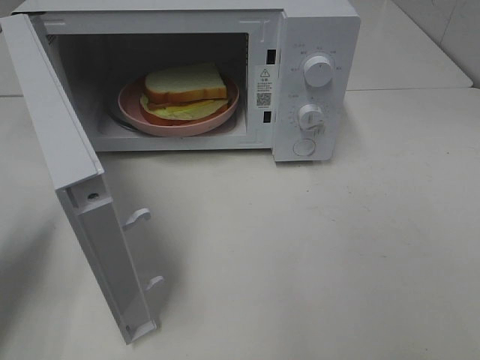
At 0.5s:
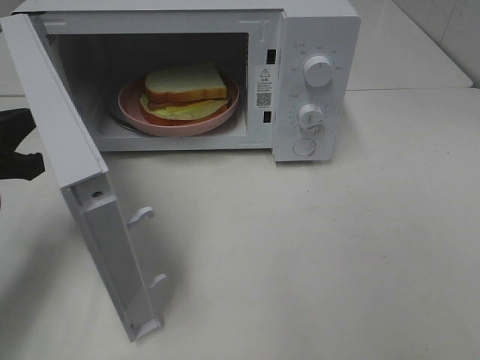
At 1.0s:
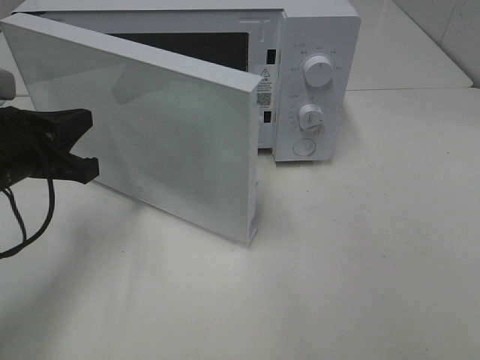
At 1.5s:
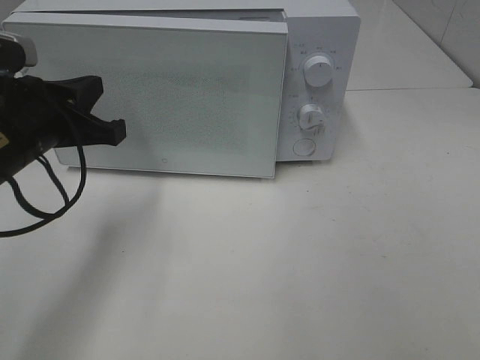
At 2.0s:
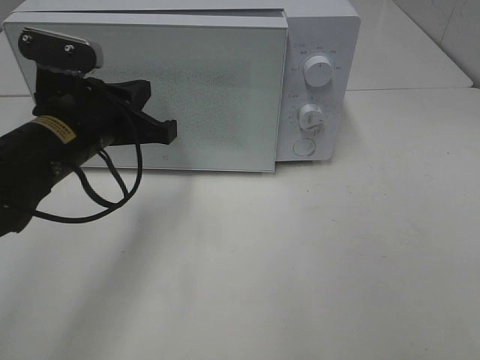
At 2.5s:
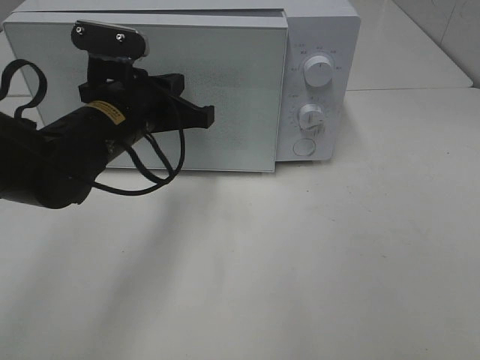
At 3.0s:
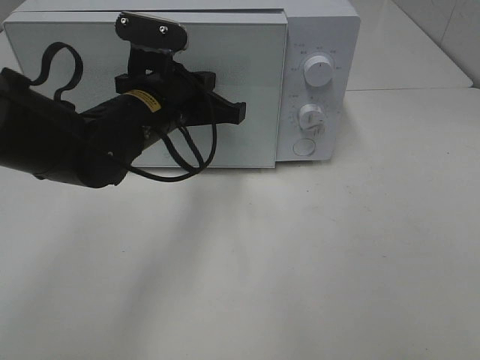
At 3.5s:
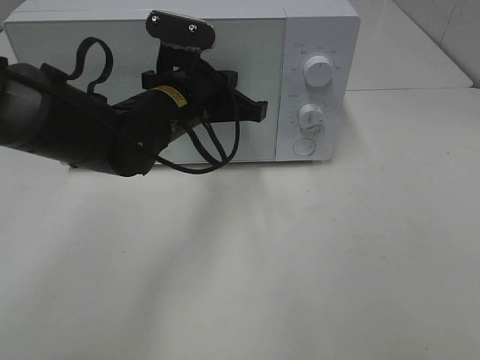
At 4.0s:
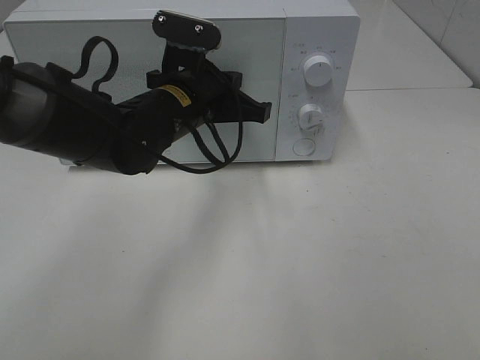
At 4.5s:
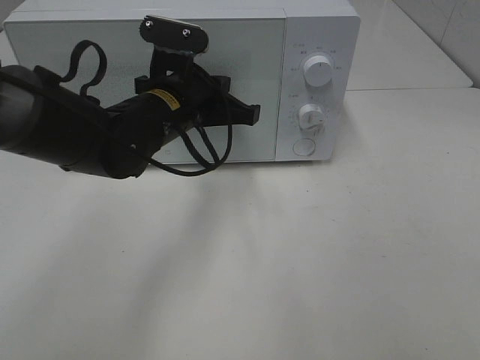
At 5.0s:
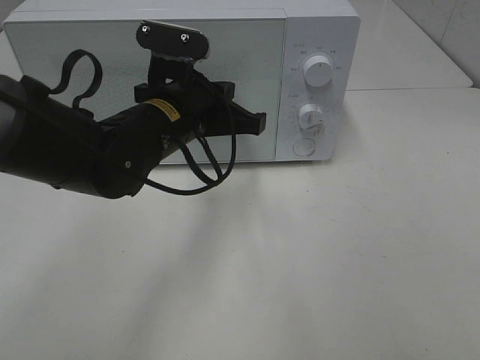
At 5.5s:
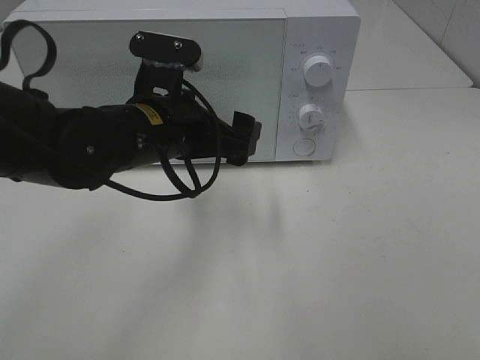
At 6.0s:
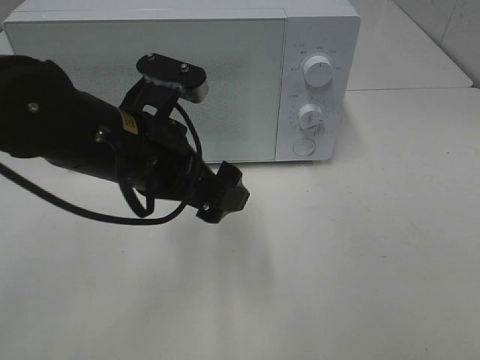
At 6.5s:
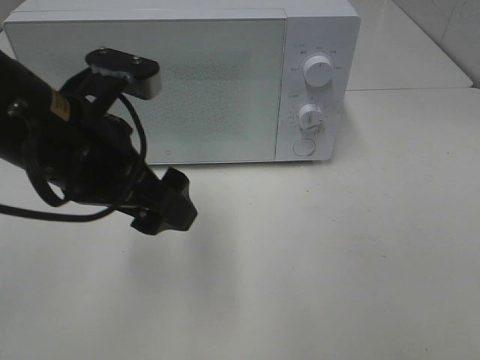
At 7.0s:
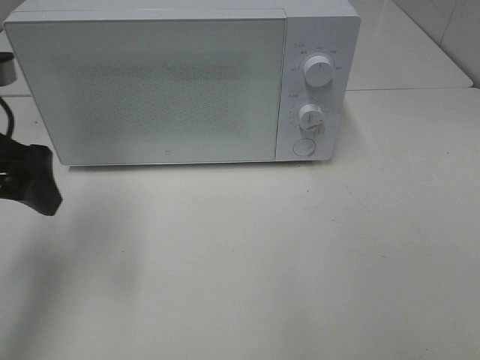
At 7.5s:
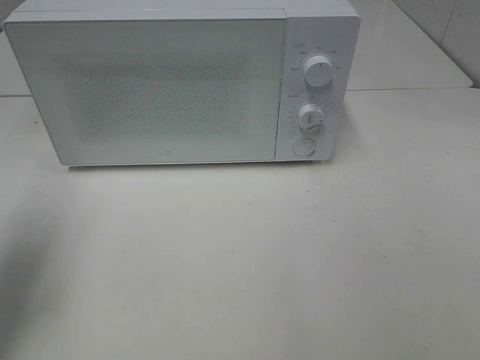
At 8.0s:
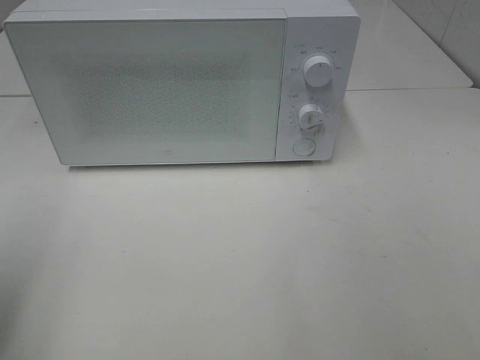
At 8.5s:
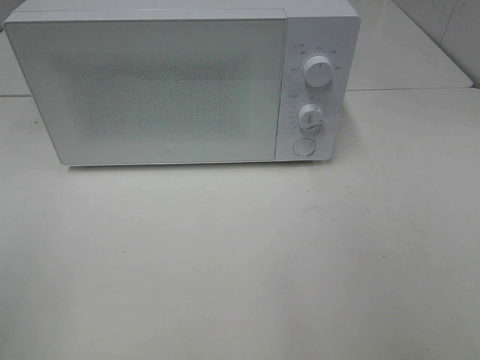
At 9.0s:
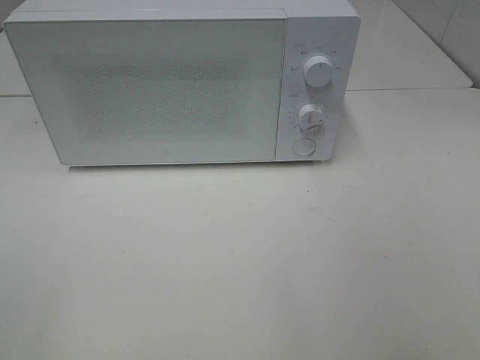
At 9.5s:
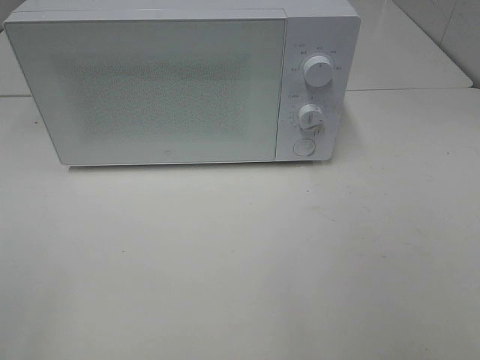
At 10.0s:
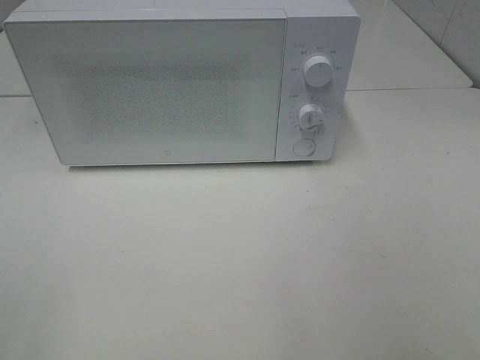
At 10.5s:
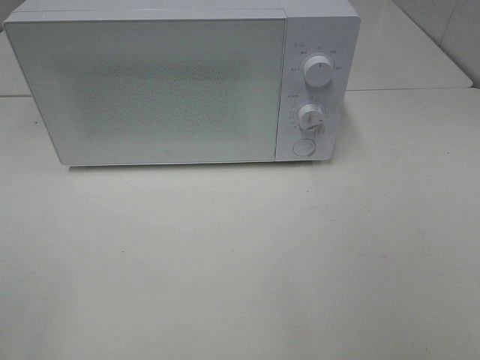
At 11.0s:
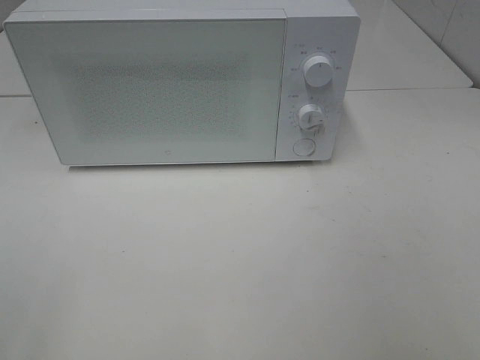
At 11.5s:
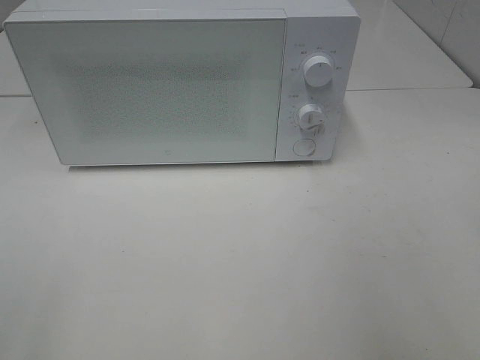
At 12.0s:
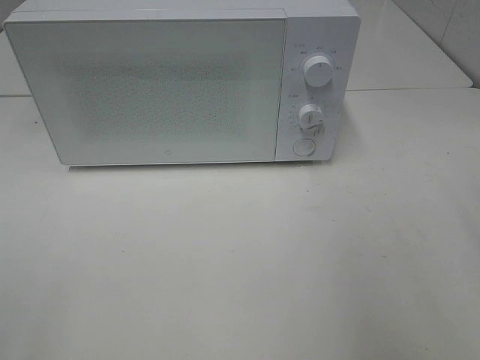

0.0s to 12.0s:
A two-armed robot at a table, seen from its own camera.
Task of the whole recording: Heat Sandwich.
Step, 0.0s to 4.5s: Left hand: close the microwave door.
0.0s to 2.0s: The left gripper travels to the right and forward by roughly 20 cm.
2.0s to 4.0s: The left gripper moves to the right and forward, some 10 cm.
4.0s to 6.0s: The left gripper shifts approximately 10 cm backward, and opens its fingers.
6.0s to 8.0s: The left gripper is displaced to the left and backward by some 25 cm.
8.0s to 10.0s: The left gripper is displaced backward by roughly 10 cm.

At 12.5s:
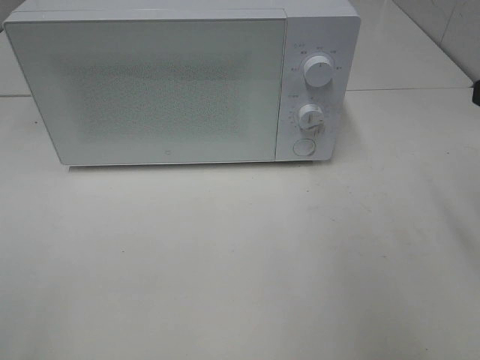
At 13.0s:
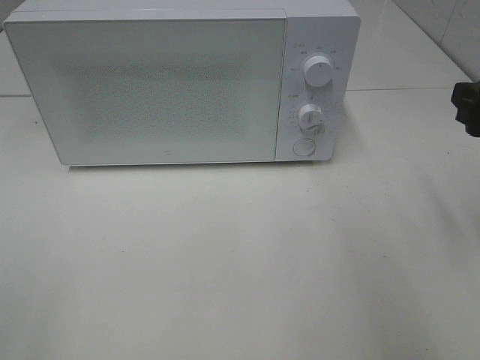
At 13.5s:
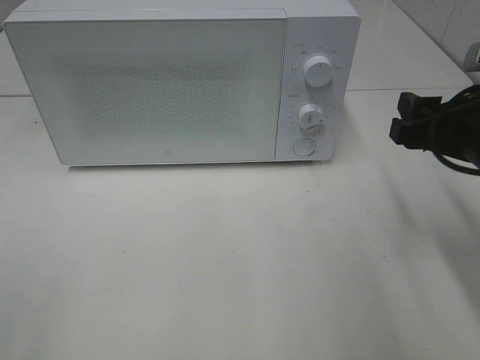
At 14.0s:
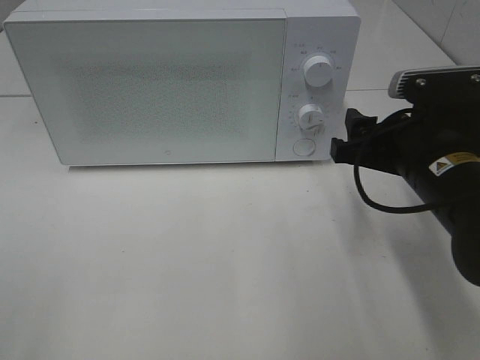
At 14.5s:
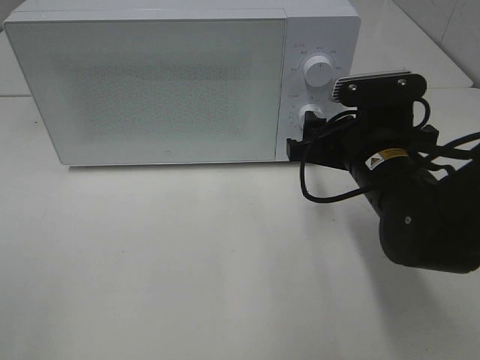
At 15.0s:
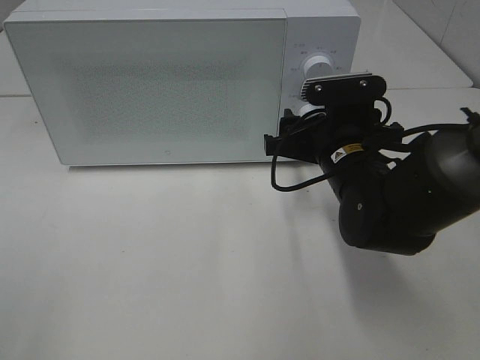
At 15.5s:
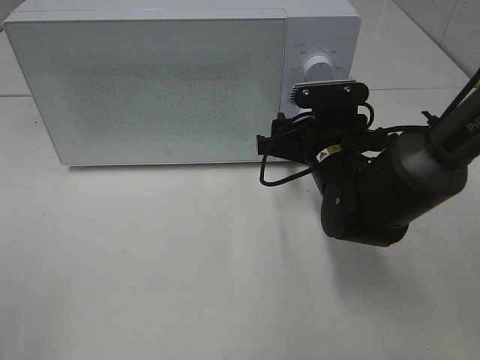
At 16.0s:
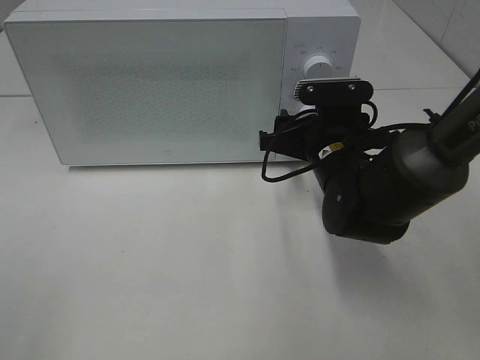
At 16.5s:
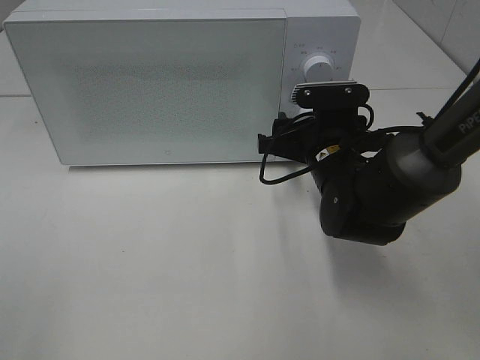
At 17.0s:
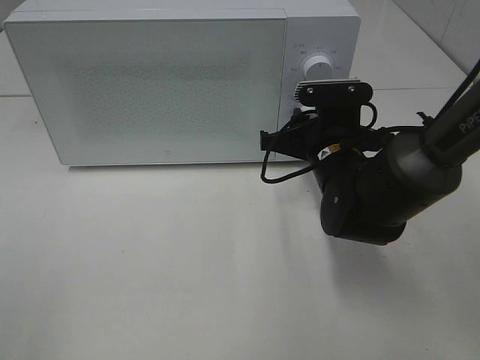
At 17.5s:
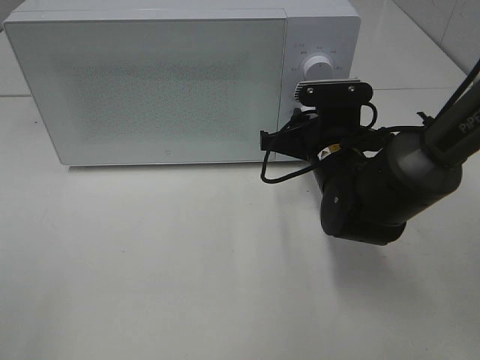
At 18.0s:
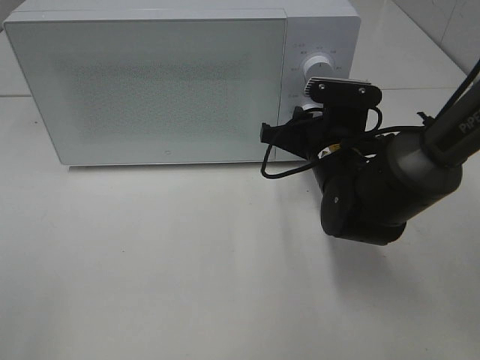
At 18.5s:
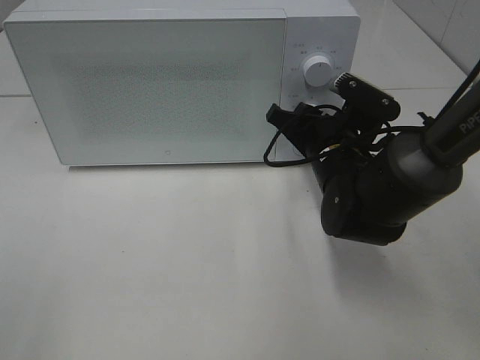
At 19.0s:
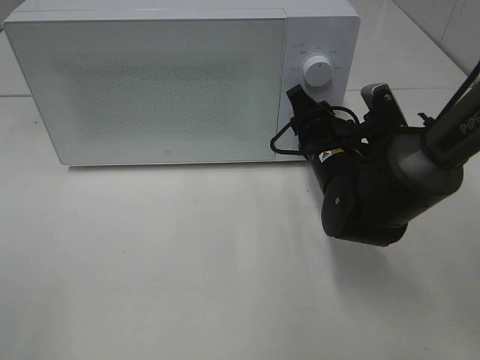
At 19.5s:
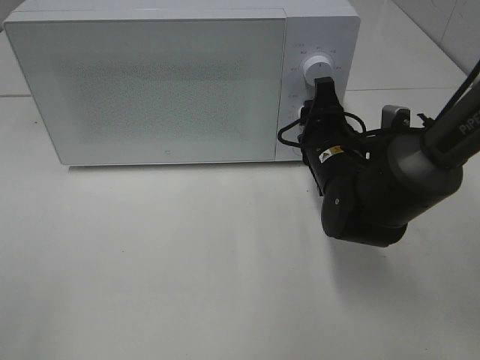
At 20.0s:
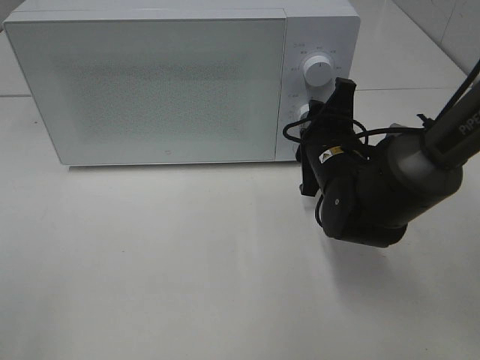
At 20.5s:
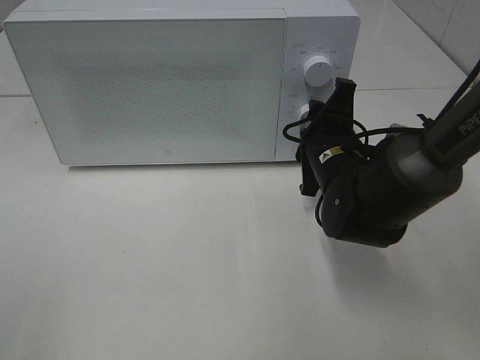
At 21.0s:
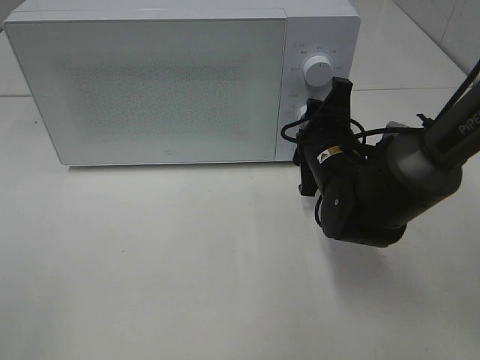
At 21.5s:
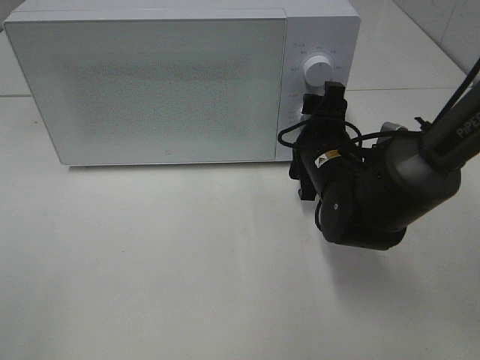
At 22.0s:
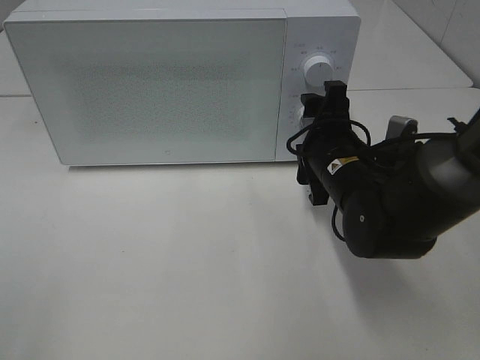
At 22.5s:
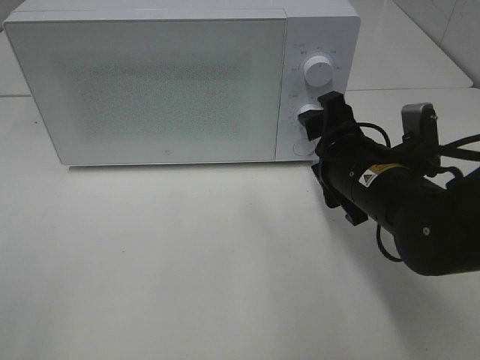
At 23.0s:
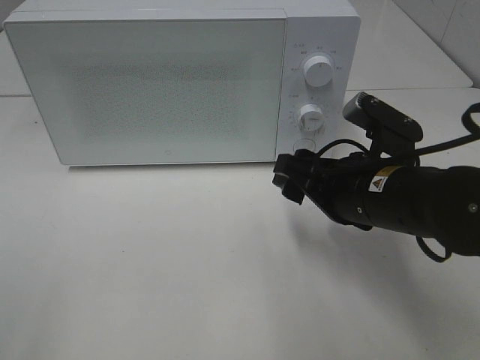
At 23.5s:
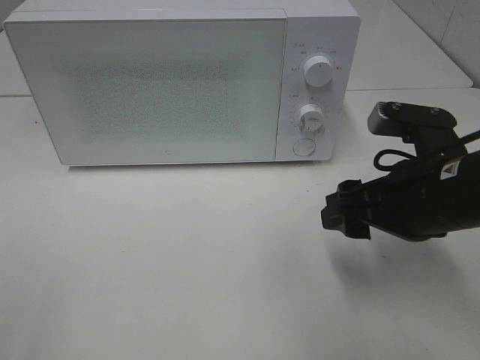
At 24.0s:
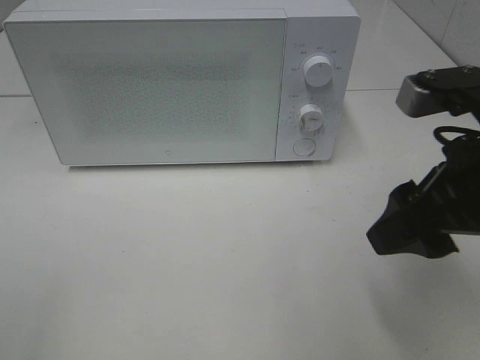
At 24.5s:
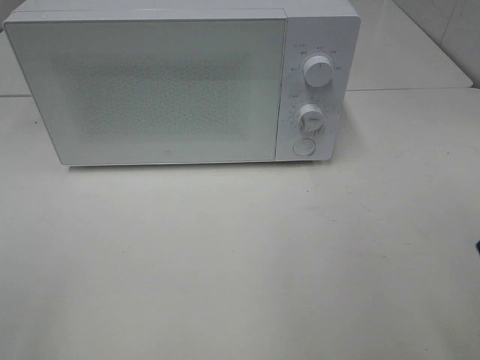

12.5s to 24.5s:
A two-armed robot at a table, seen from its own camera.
Task of the whole recording: Heat Sandwich.
Step, 12.5s to 22.0s: Right hand: twist timer button.
12.5s to 14.5s: The right gripper heads to the left, downward and forward, covering roughly 20 cm.
14.5s to 16.5s: The right gripper travels forward by about 5 cm.
16.5s to 18.5s: The right gripper closes up.
20.5s to 22.5s: The right gripper goes approximately 5 cm backward, and opens.
22.5s to 24.5s: The right gripper heads upward, backward and to the right, covering roughly 25 cm.

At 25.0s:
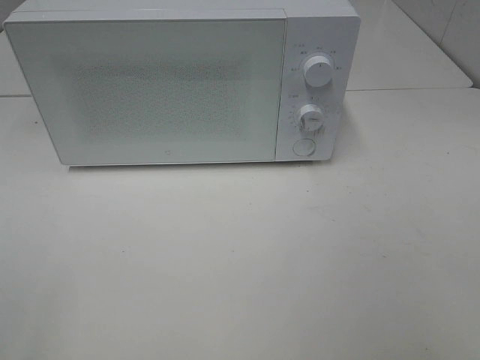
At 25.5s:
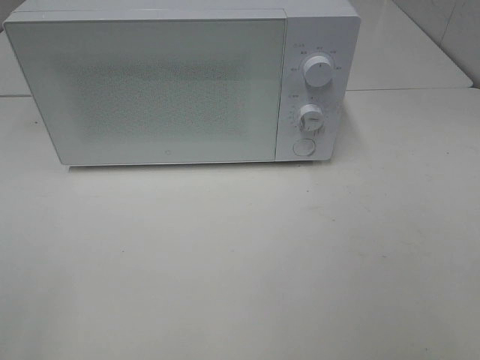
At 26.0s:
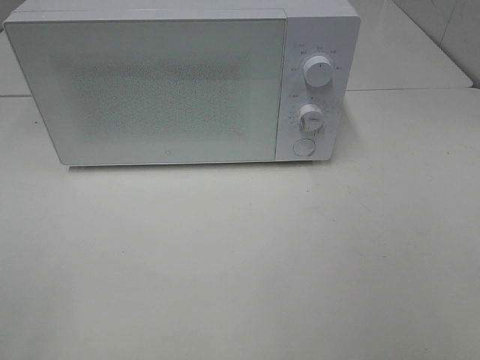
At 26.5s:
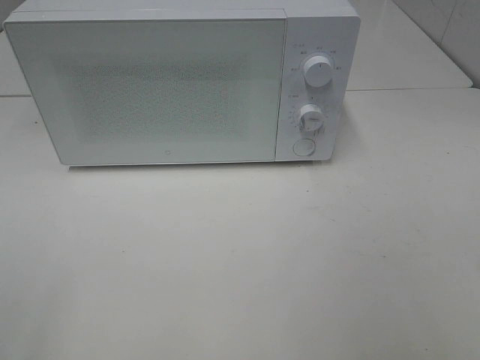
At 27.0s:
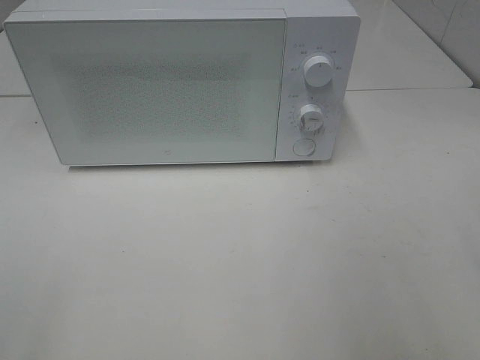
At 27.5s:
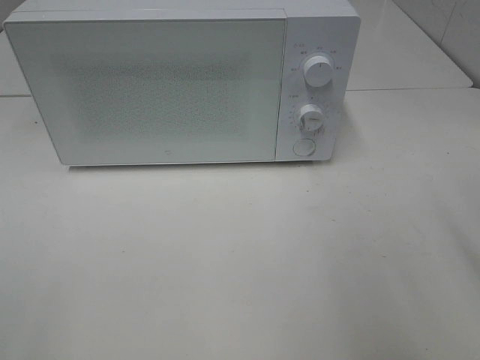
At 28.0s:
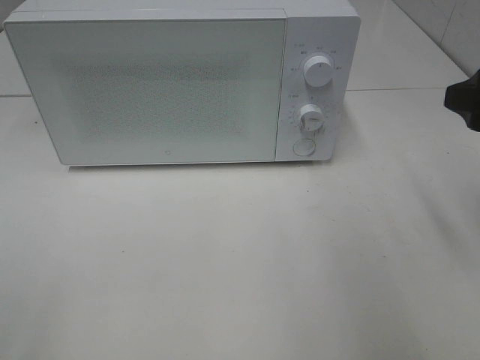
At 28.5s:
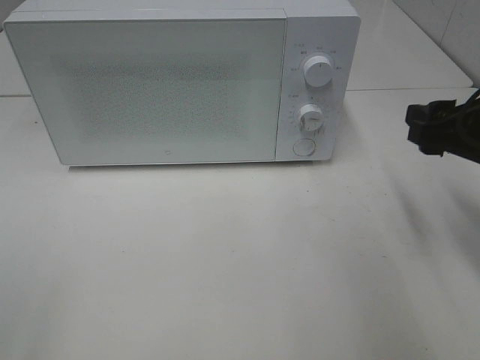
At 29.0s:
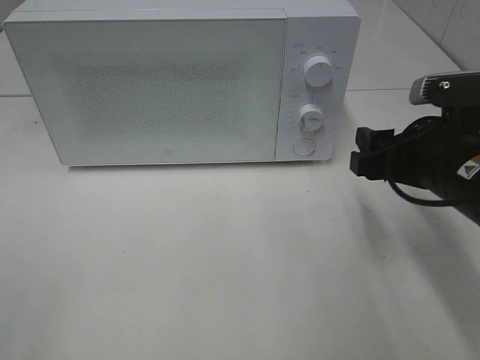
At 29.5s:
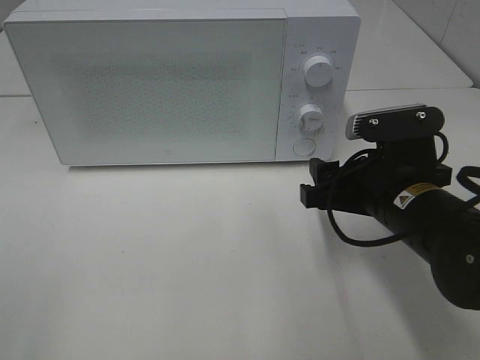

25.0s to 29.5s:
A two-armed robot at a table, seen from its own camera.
Task of the whole recording: Heat Sandwich.
27.0s to 29.5s: The right gripper travels downward, forward and to the left by roughly 25 cm.
